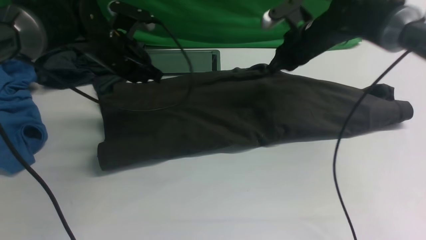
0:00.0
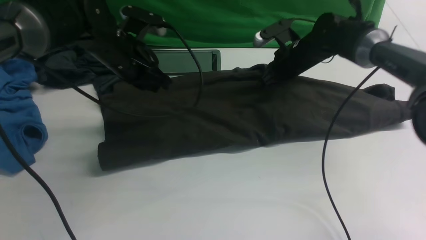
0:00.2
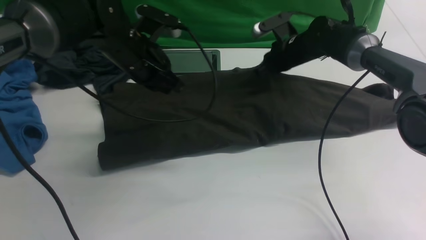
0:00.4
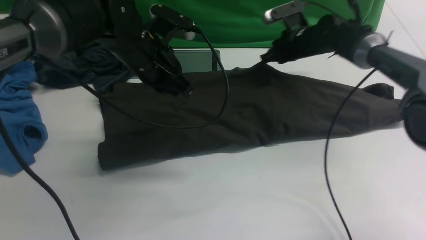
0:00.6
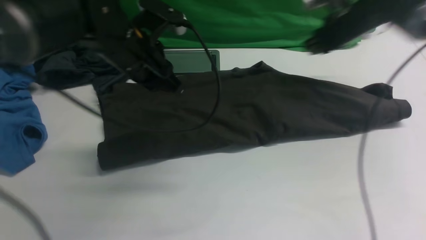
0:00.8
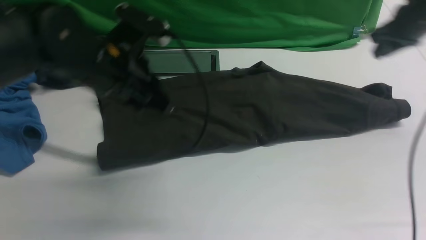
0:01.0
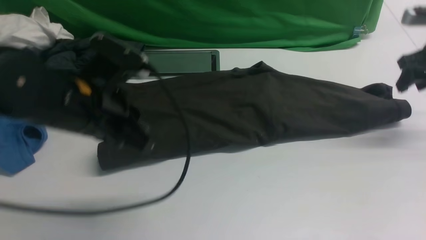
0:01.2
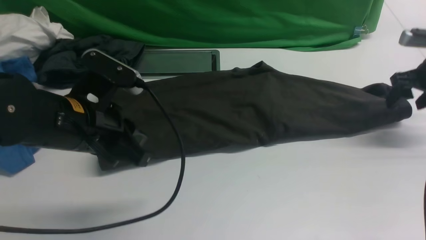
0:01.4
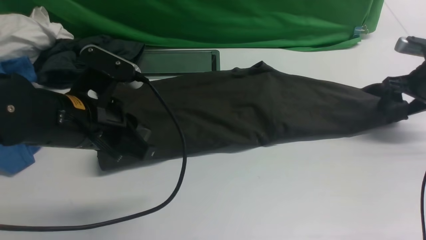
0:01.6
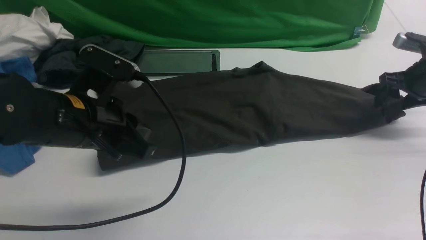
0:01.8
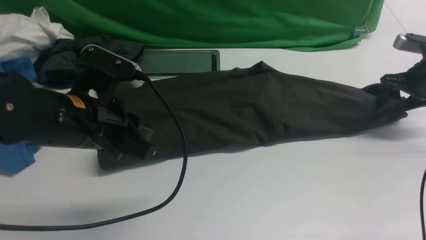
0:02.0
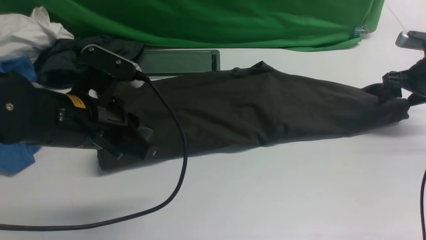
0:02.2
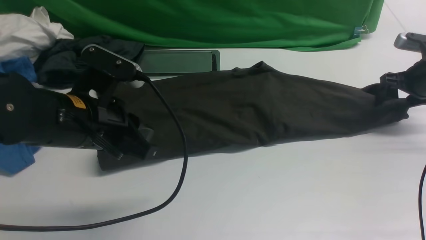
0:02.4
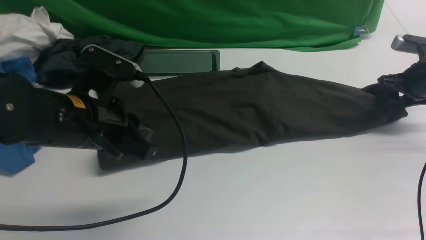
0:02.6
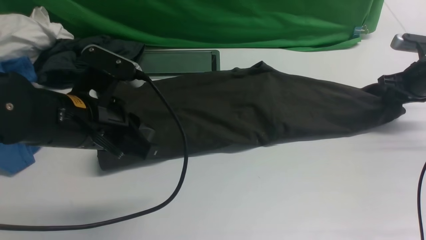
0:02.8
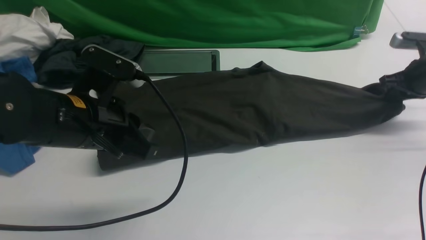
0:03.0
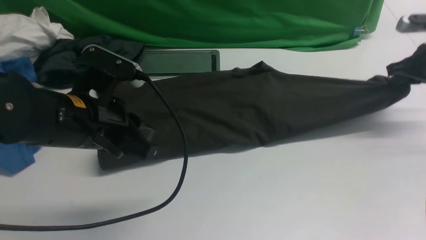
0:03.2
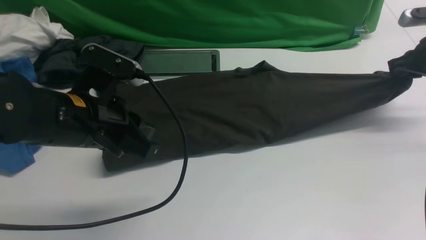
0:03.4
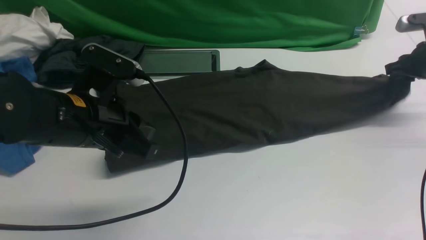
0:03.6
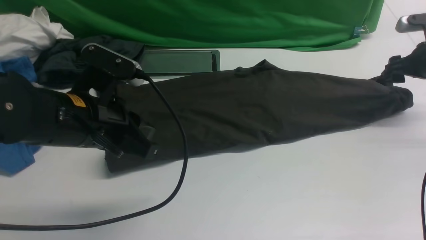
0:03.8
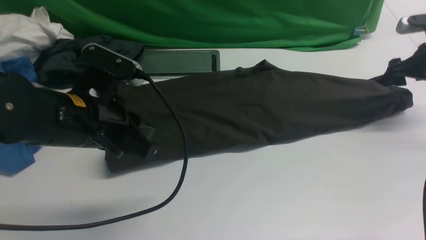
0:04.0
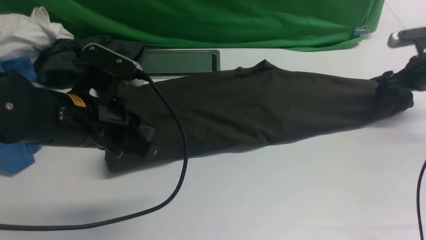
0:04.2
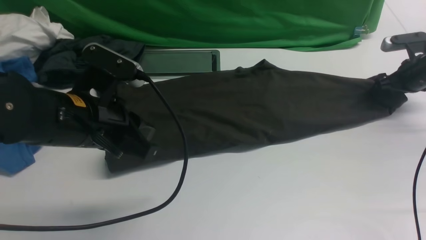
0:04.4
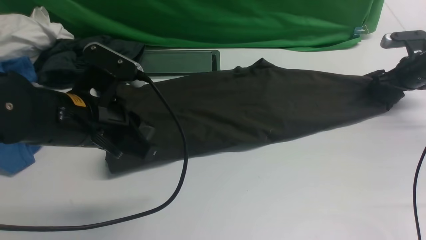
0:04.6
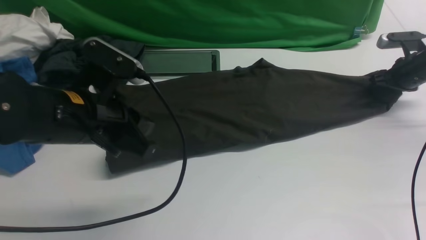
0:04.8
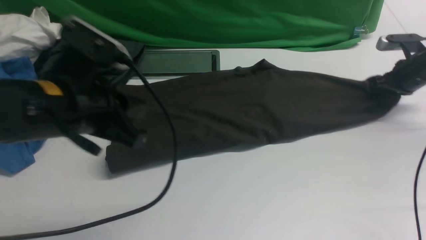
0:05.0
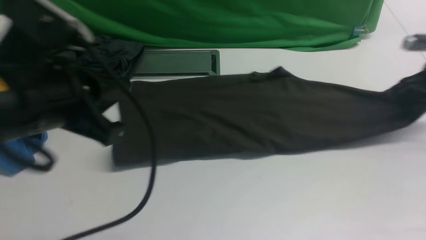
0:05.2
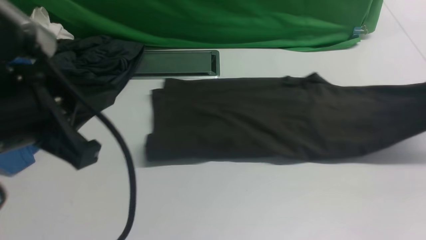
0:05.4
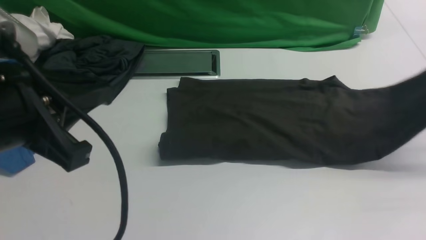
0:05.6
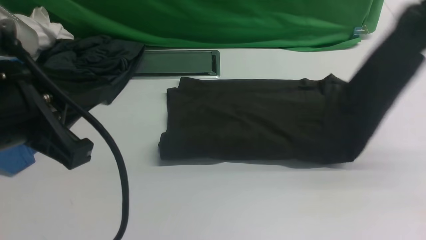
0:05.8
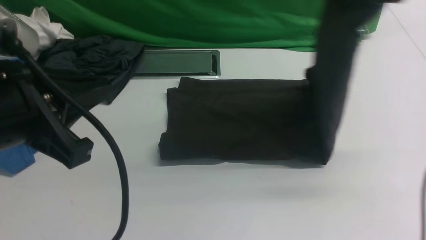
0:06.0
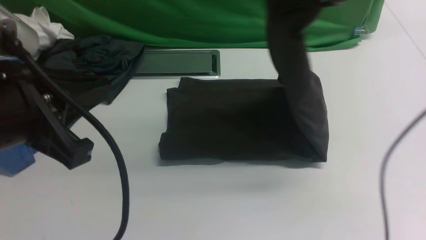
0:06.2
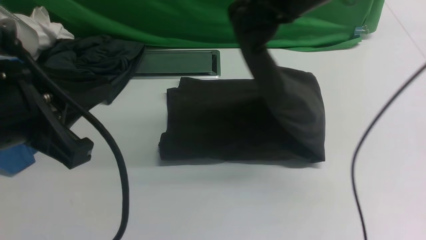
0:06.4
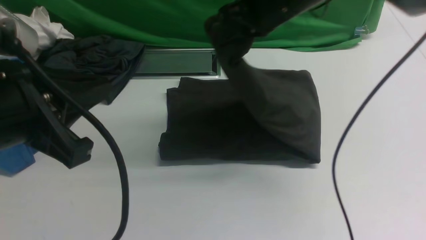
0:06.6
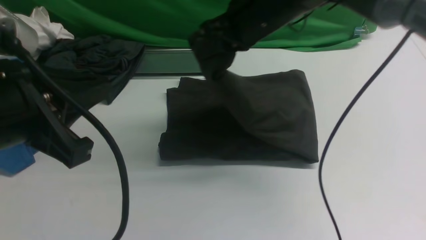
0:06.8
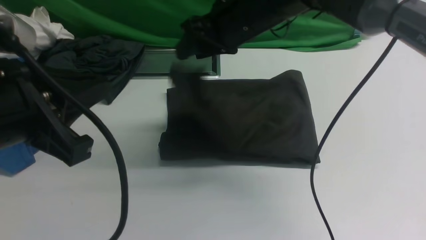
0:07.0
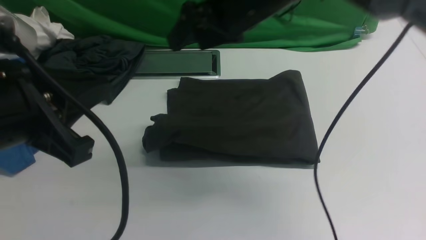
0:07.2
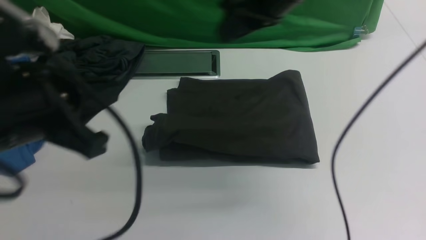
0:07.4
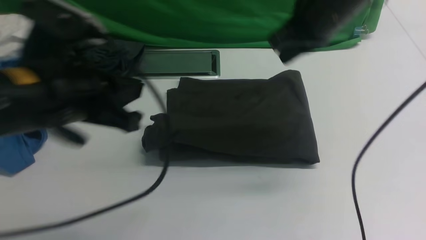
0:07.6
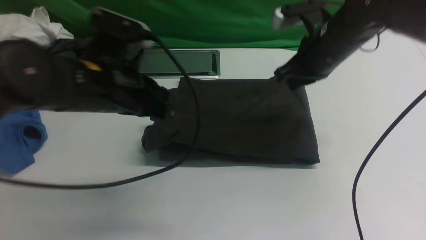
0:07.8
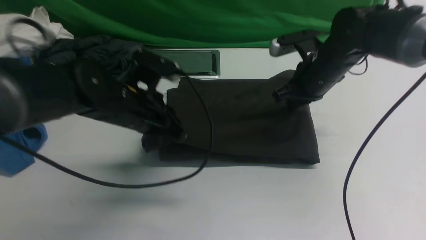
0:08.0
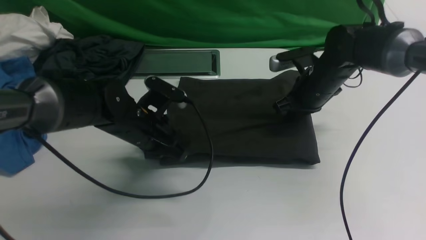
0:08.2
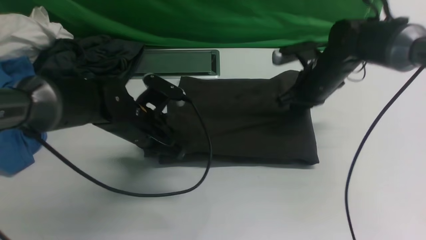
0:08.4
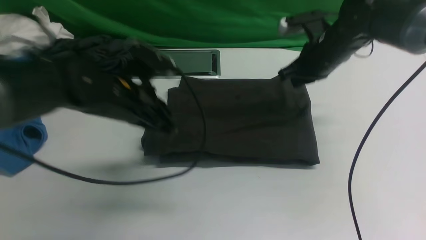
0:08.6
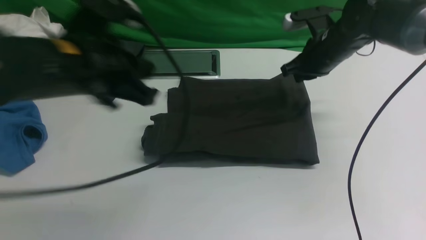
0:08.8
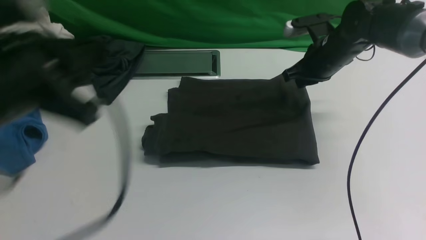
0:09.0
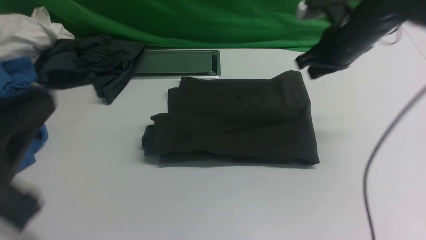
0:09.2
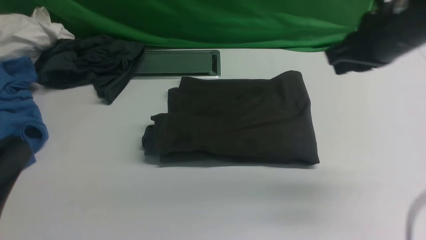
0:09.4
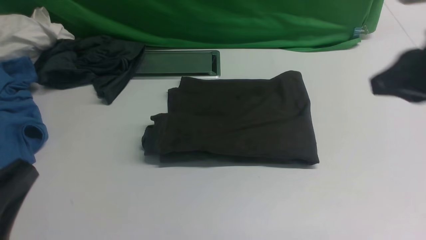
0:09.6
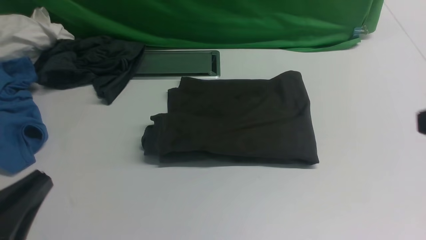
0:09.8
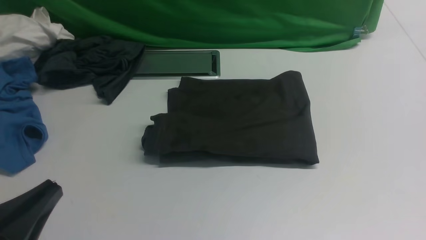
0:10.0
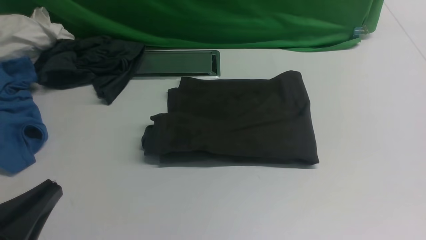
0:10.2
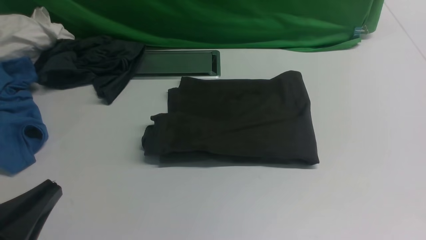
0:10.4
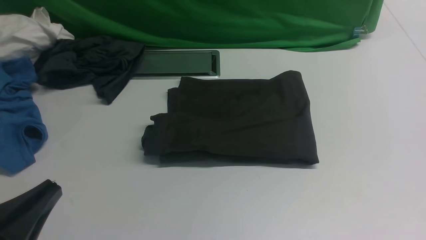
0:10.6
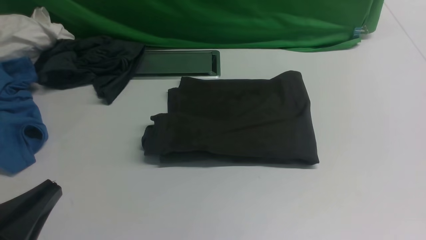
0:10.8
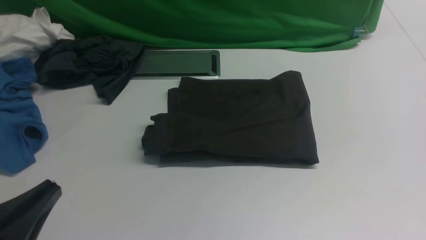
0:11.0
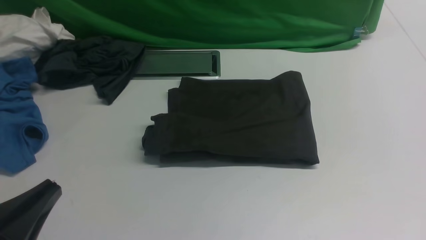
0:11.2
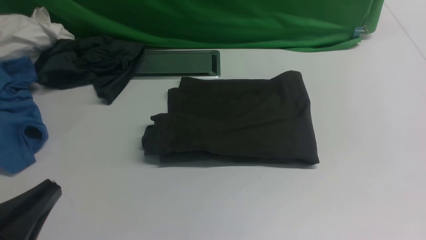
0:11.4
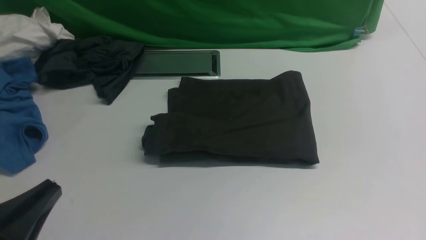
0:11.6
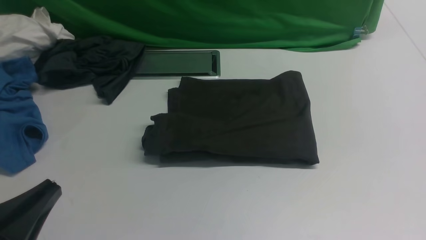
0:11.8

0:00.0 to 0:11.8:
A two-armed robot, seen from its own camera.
Step, 0:01.2 to 0:05.4: use the right arm to clamp the right edge of the fabric.
Step, 0:05.6 to 0:07.4: use the right arm to drag the right edge of the fabric to the left and folds it over the left edge.
0:00.0 to 0:01.4: The right gripper is displaced to the right by about 20 cm, and opens, while the left gripper heads backward, covering roughly 20 cm.
0:01.4 to 0:03.0: The right gripper closes.
0:03.0 to 0:04.4: The right gripper shifts by approximately 5 cm, and opens.
0:04.4 to 0:06.0: The right gripper moves upward and to the left, approximately 30 cm, and closes up. Meanwhile the left gripper goes some 15 cm upward and backward.
0:06.0 to 0:07.4: The right gripper travels to the left by about 15 cm.
0:07.4 to 0:08.8: The left gripper shifts roughly 5 cm forward, and travels downward and back again, about 15 cm each way, while the right gripper is displaced downward, to the right and forward by about 20 cm.
0:08.8 to 0:10.4: The right gripper travels backward by about 35 cm. Meanwhile the left gripper goes approximately 20 cm backward and downward.

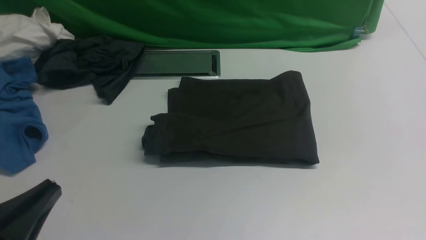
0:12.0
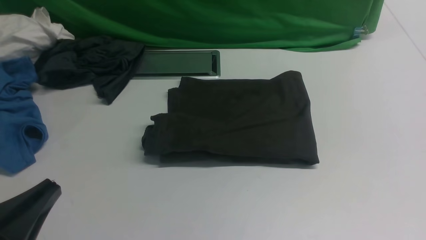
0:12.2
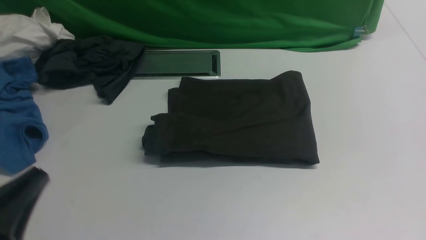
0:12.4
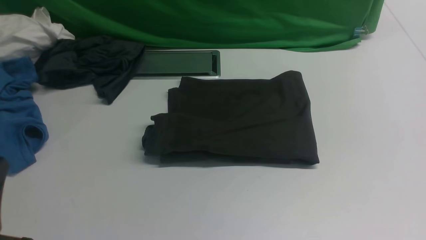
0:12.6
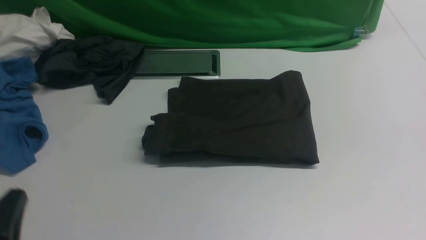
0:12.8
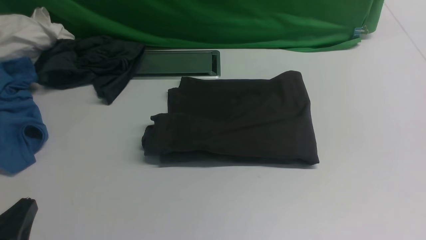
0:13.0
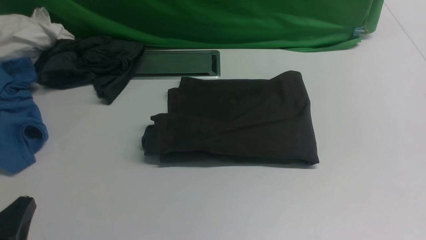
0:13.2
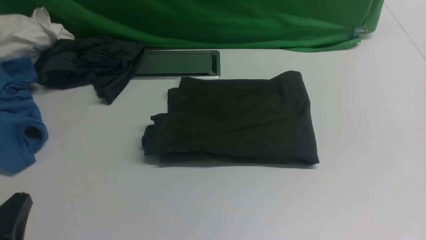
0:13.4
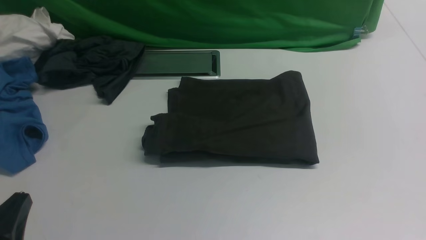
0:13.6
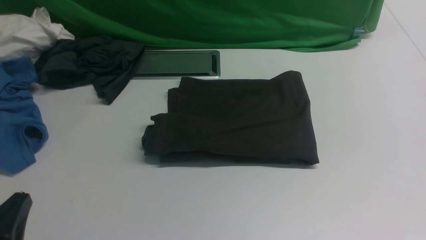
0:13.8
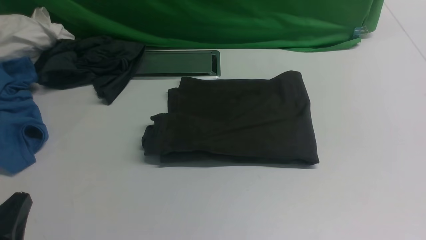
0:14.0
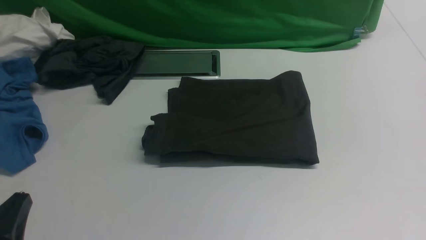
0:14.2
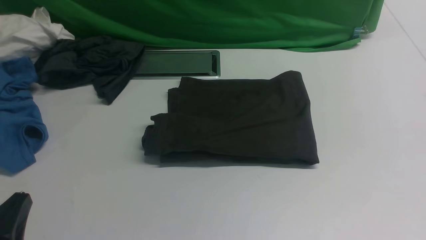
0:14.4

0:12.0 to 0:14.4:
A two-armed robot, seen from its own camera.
0:12.0 to 0:13.2: The left gripper goes some 5 cm downward.
0:13.2 to 0:14.4: The two grippers keep their place.
